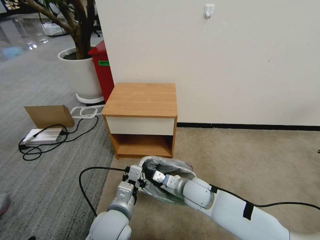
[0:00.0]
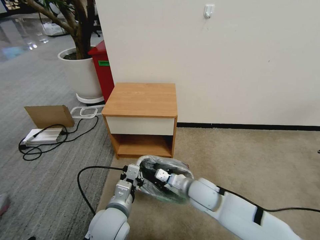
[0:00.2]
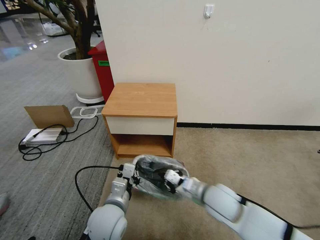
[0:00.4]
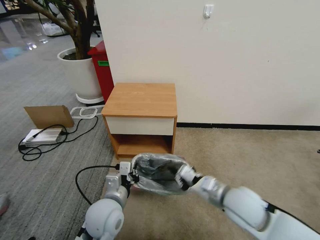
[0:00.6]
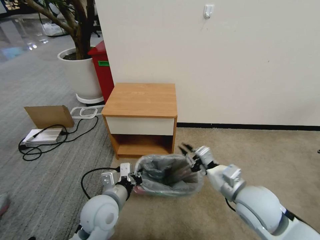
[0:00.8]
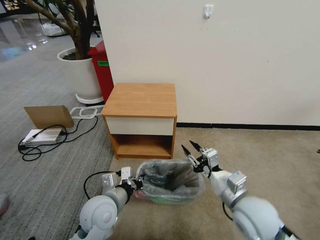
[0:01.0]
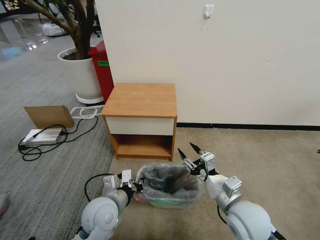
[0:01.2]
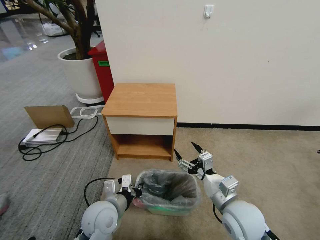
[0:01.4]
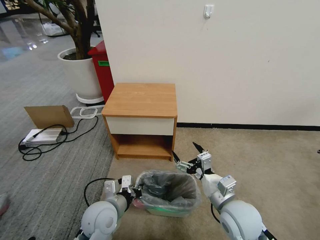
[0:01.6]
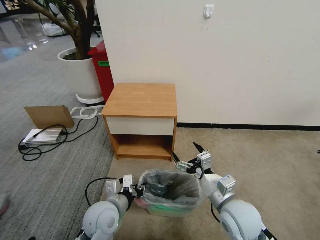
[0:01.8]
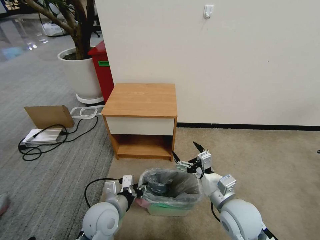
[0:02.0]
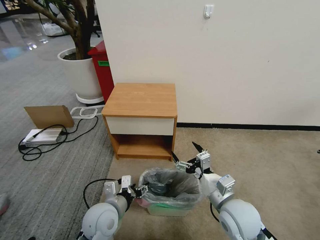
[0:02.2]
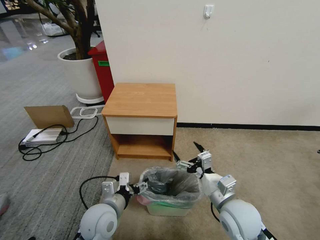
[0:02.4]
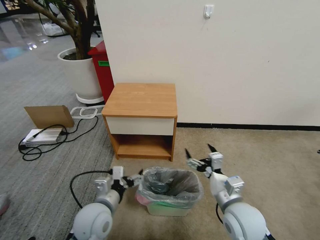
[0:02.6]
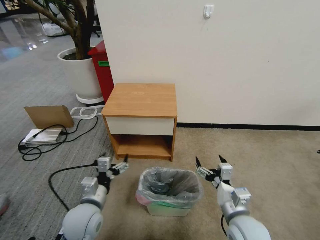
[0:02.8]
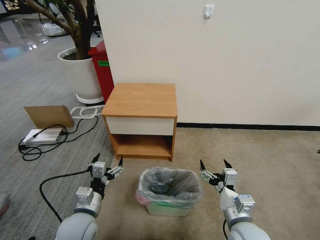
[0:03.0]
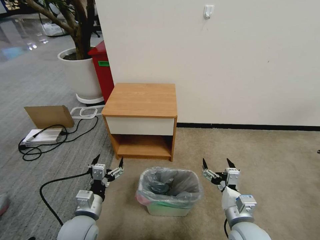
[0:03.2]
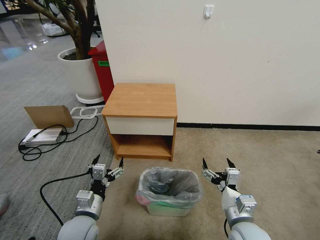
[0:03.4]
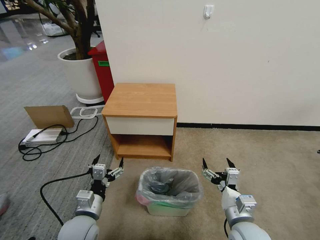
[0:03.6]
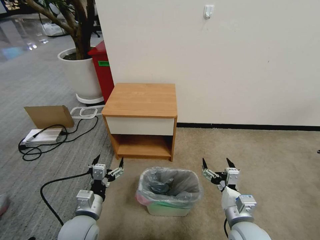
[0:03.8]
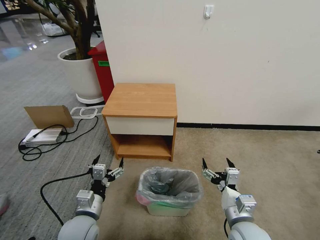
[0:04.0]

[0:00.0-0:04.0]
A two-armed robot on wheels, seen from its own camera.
Task of the whole recording: Pick up the garbage bag from the table and place it over the trash can.
0:00.0 to 0:01.4: The left gripper moves some 5 cm; the right gripper moves backward, to the right and upward, some 15 cm, and opens its fingers.
0:01.4 to 0:02.6: The left gripper opens up.
0:02.6 to 0:04.0: The left gripper moves roughly 5 cm. Meanwhile the right gripper shifts by approximately 5 cm.
